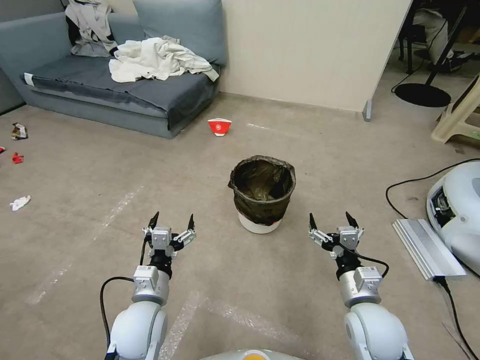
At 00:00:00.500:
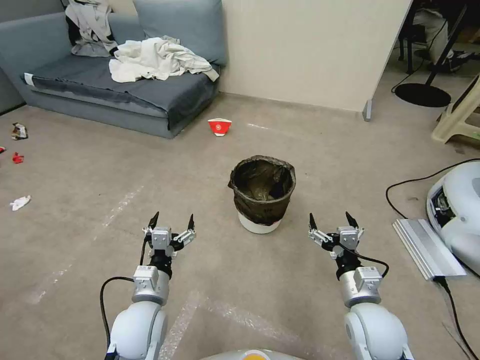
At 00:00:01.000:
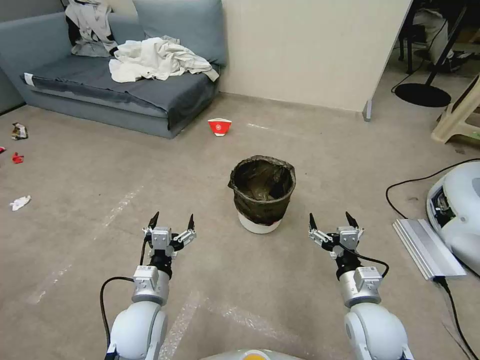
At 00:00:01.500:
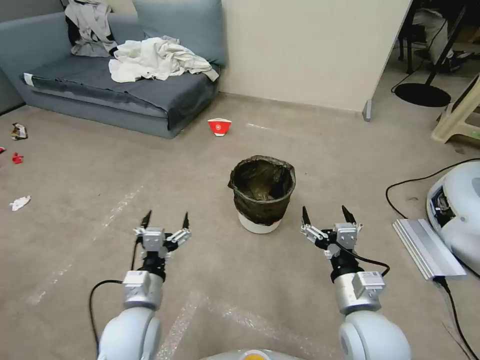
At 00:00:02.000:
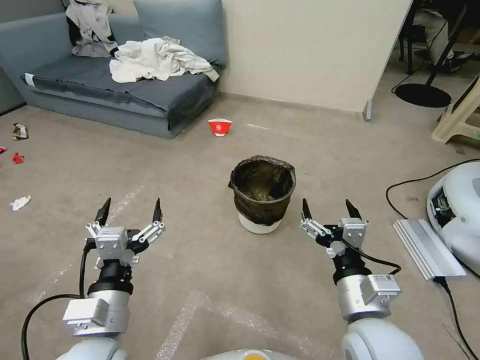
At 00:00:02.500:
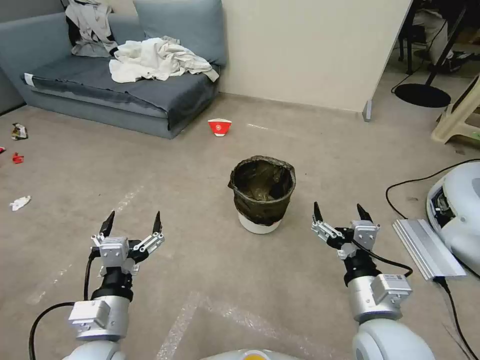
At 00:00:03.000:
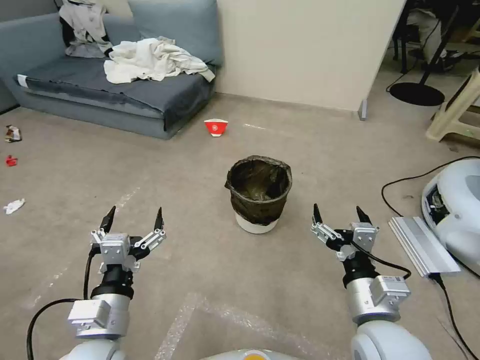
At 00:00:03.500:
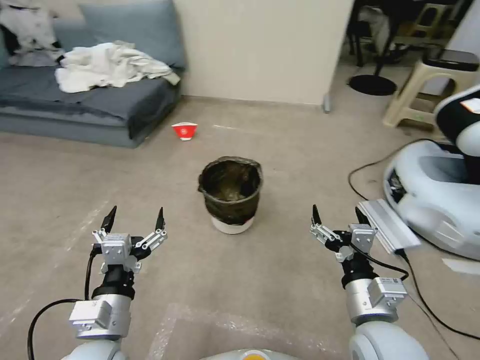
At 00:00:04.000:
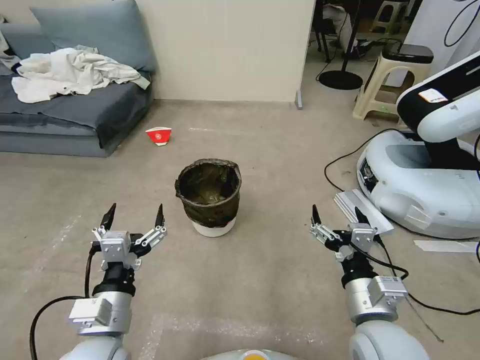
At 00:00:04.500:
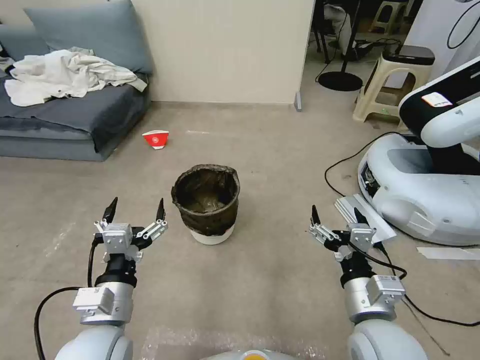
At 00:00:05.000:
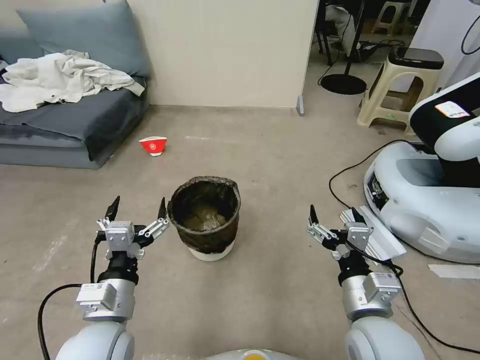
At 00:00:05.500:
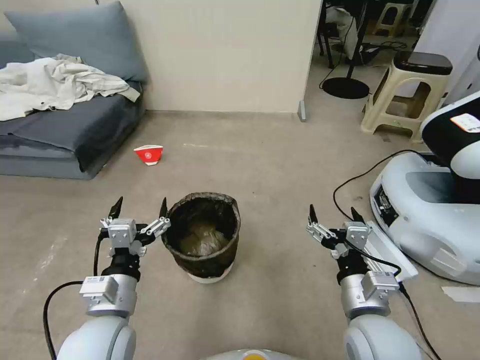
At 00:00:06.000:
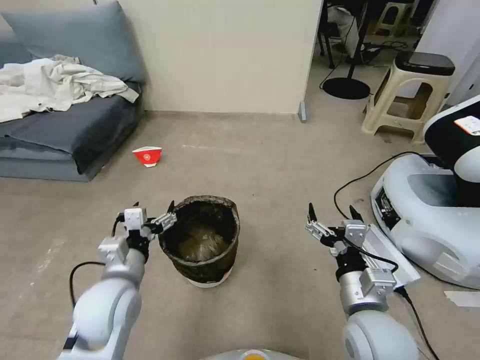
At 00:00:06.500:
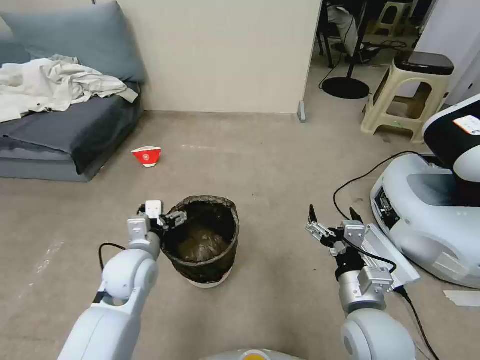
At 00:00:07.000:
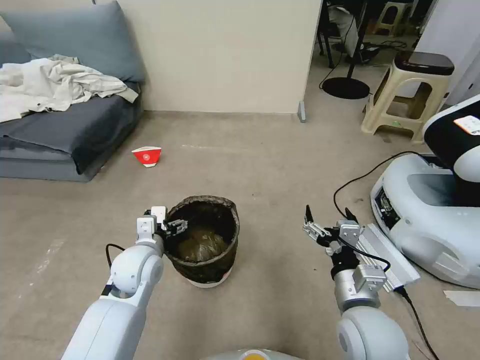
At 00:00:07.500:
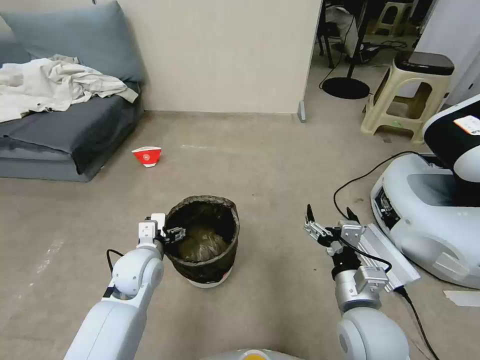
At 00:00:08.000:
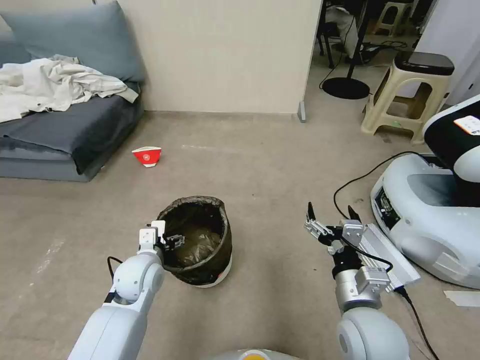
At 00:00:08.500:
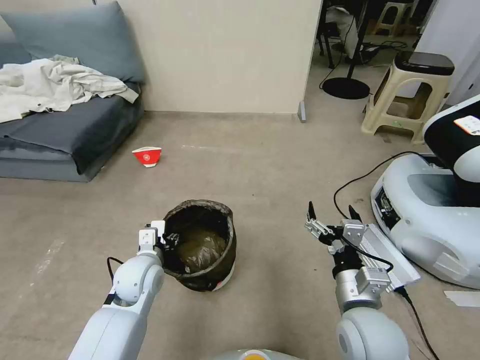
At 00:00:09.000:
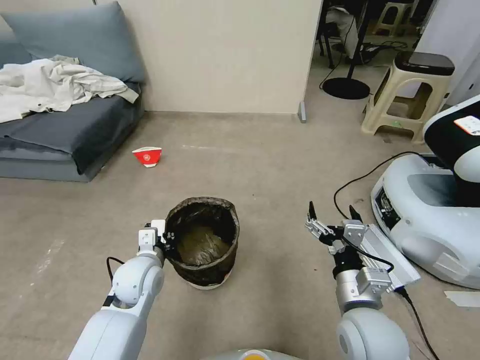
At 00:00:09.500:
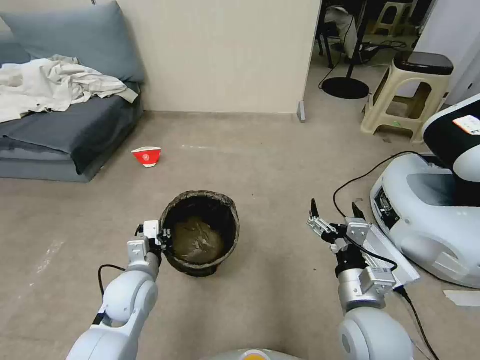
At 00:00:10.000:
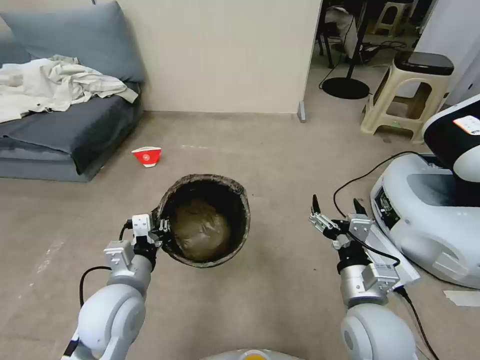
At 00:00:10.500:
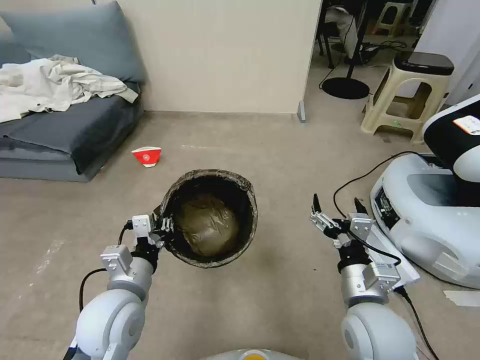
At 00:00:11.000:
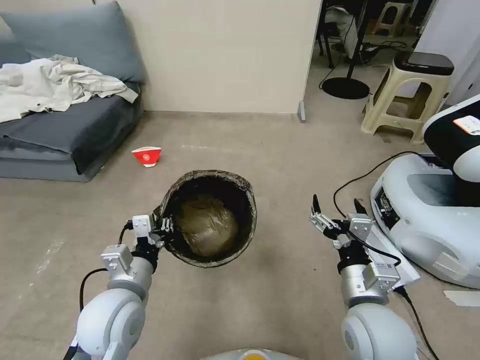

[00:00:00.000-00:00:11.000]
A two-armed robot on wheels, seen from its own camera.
Task of the whole recording: Pick up the trash can from the floor.
00:00:05.500 to 00:00:07.500: The left gripper heads forward and downward, covering approximately 15 cm.
00:00:07.500 to 00:00:09.000: The left gripper closes up.
00:00:09.000 to 00:00:11.000: The left gripper is displaced backward and upward by about 10 cm.
